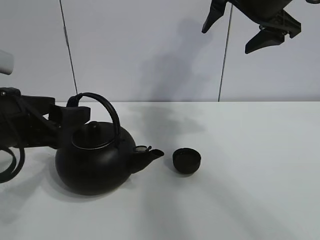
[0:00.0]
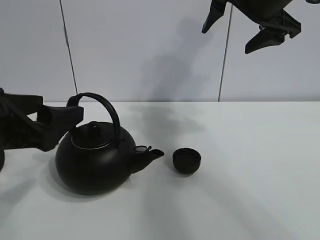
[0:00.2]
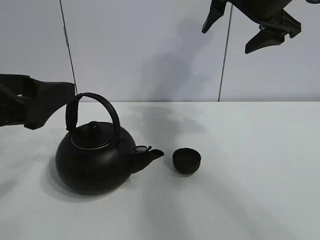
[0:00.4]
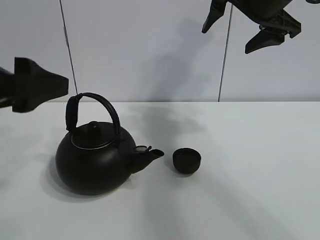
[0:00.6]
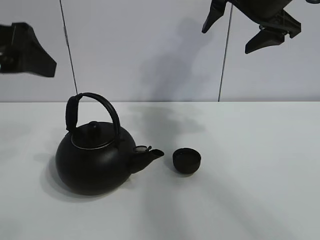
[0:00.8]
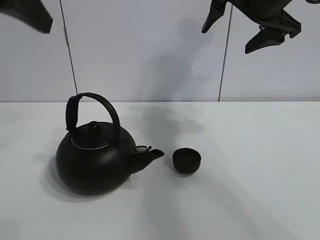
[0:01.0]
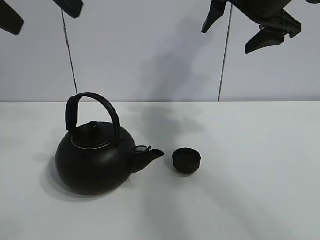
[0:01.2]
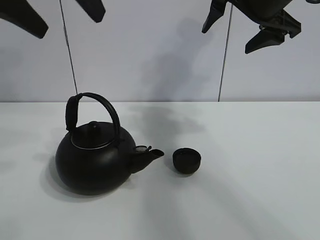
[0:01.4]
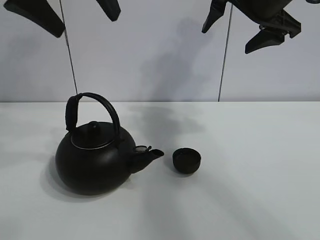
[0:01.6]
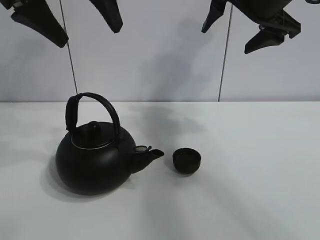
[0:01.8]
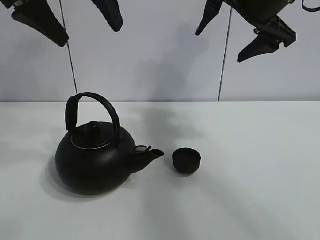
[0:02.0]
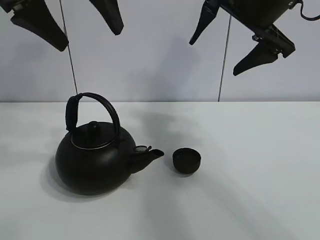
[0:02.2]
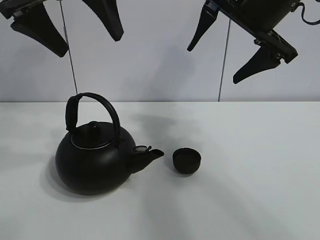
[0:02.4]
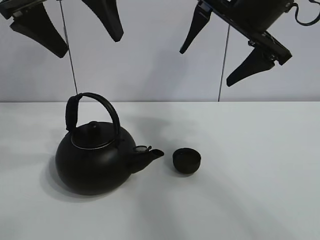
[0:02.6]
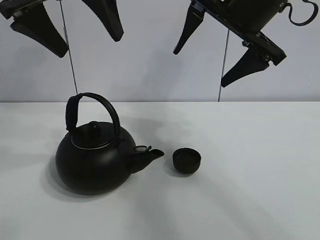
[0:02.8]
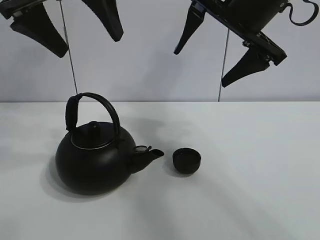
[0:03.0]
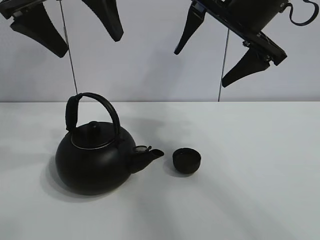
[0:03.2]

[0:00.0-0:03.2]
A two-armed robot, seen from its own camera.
Task of the whole recording: pour tea into the teacup.
0:00.0 to 0:01.6: The left gripper moves upward, approximately 20 cm.
0:01.6 to 0:03.2: The right gripper changes place by approximately 5 cm.

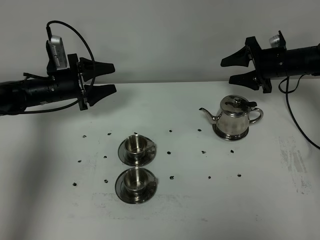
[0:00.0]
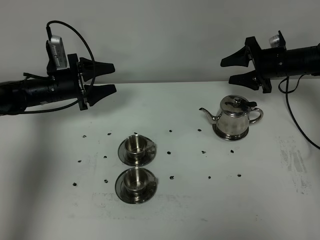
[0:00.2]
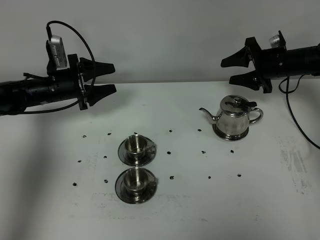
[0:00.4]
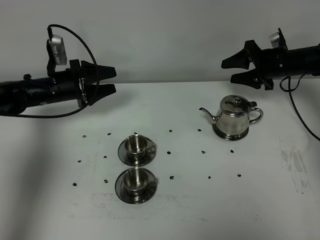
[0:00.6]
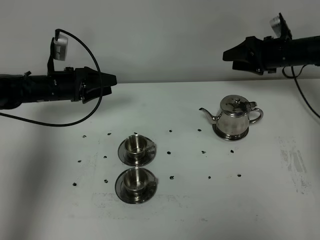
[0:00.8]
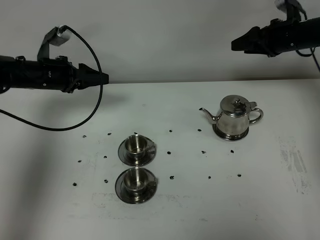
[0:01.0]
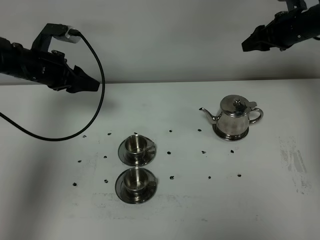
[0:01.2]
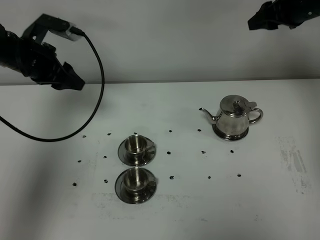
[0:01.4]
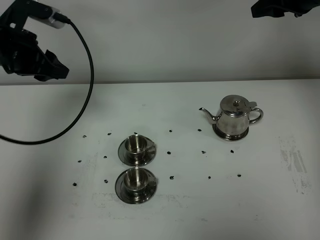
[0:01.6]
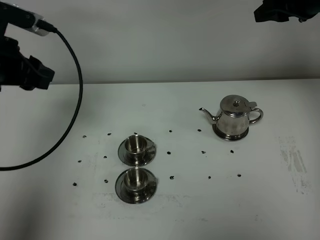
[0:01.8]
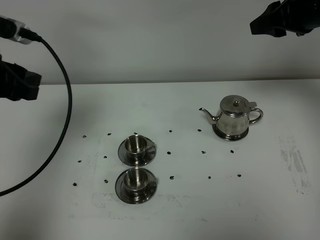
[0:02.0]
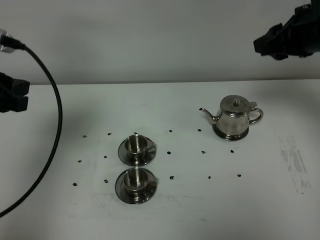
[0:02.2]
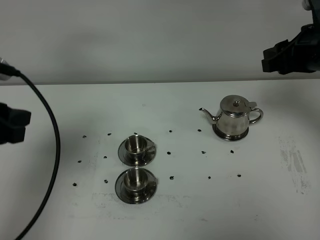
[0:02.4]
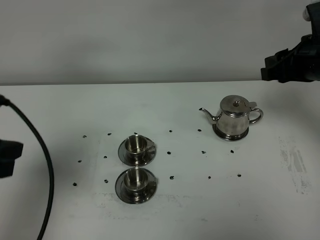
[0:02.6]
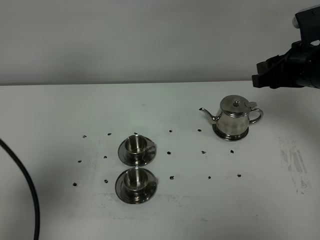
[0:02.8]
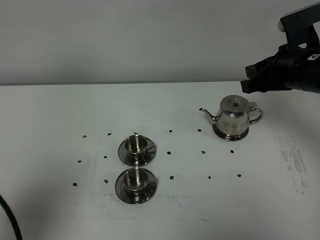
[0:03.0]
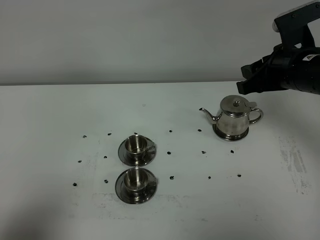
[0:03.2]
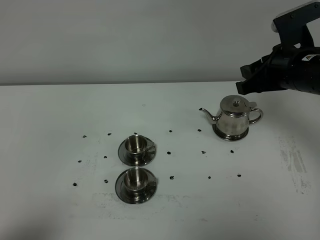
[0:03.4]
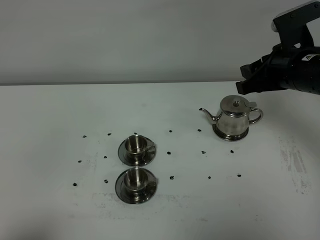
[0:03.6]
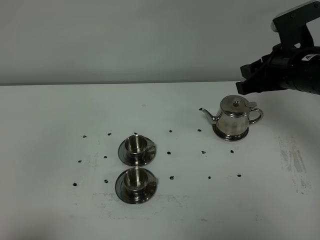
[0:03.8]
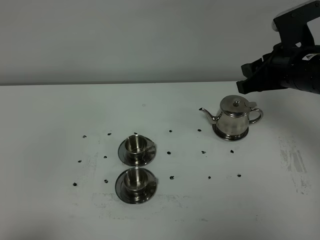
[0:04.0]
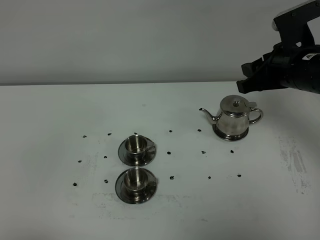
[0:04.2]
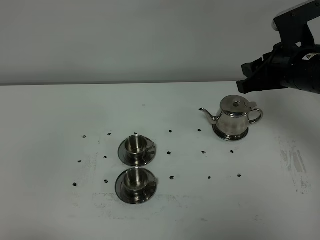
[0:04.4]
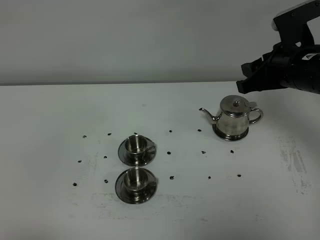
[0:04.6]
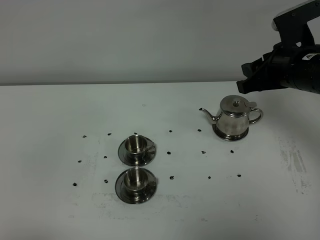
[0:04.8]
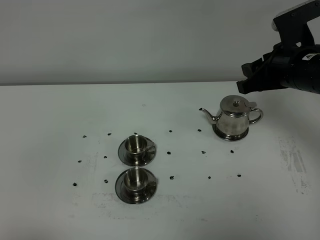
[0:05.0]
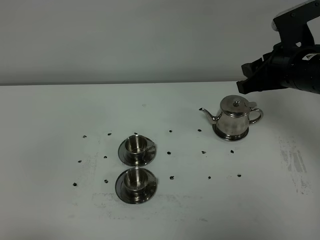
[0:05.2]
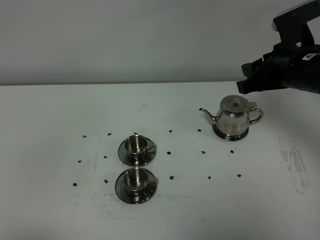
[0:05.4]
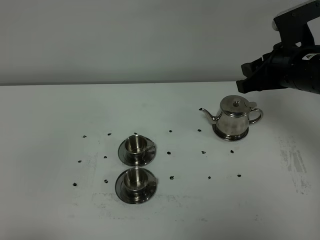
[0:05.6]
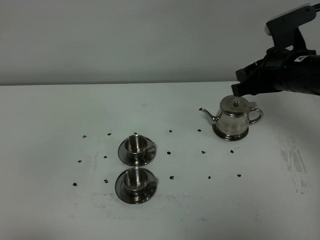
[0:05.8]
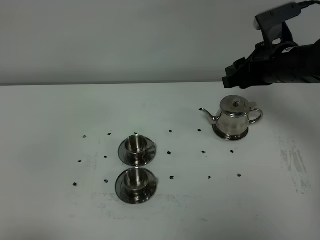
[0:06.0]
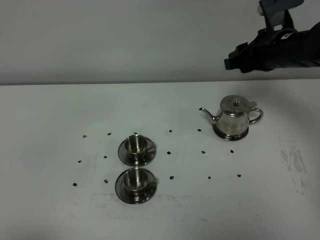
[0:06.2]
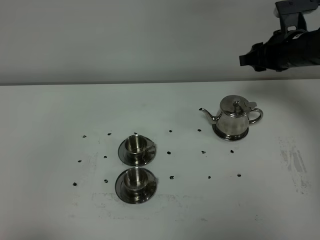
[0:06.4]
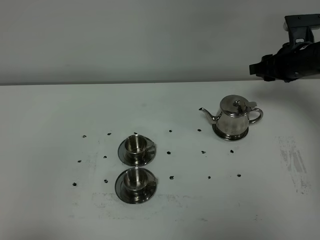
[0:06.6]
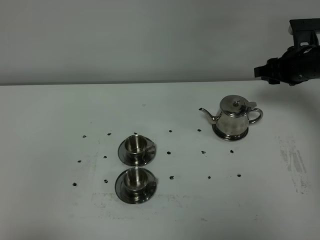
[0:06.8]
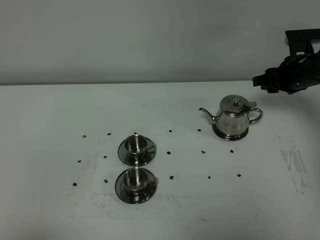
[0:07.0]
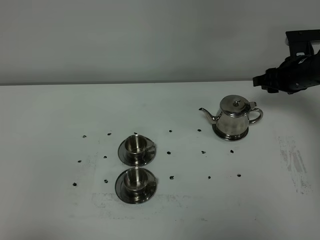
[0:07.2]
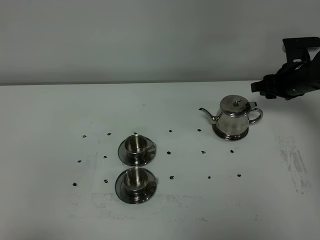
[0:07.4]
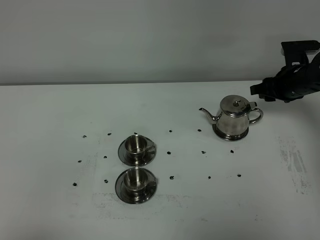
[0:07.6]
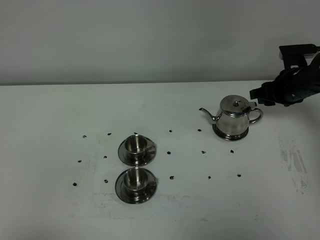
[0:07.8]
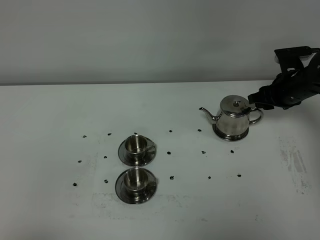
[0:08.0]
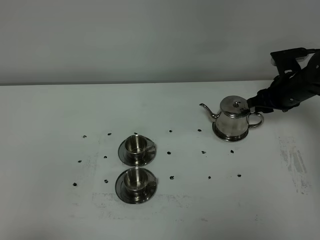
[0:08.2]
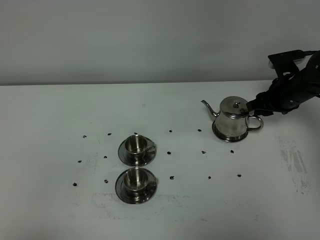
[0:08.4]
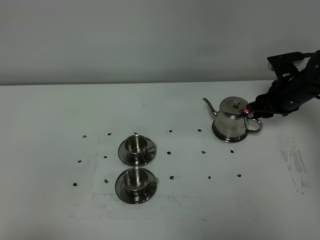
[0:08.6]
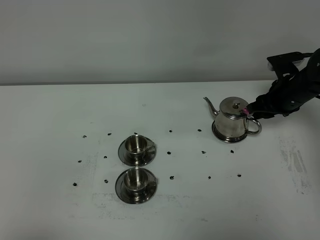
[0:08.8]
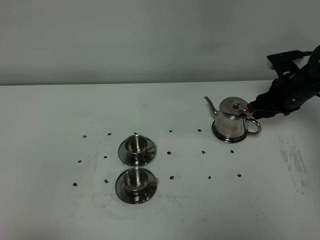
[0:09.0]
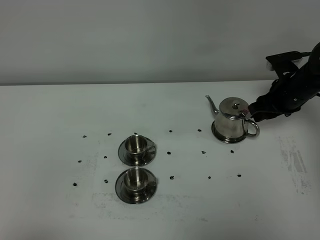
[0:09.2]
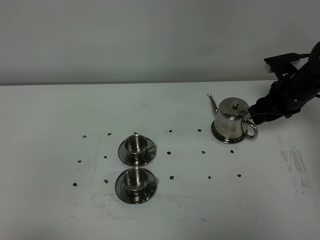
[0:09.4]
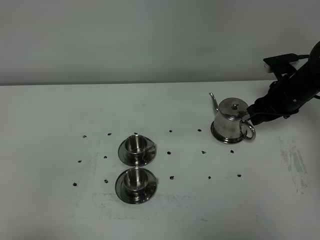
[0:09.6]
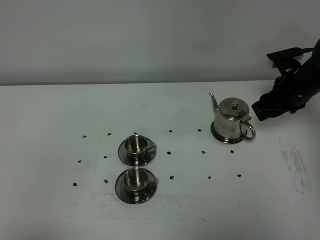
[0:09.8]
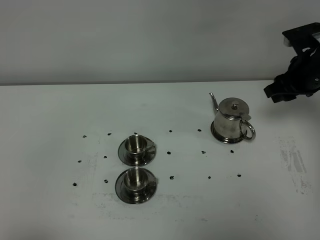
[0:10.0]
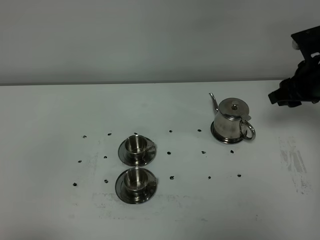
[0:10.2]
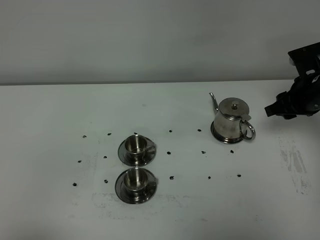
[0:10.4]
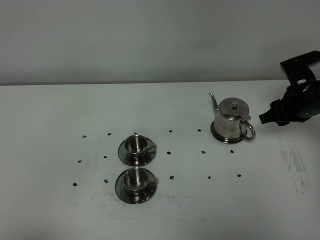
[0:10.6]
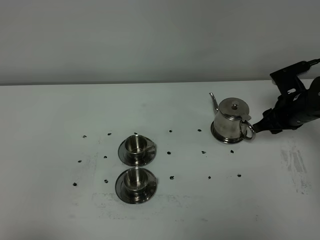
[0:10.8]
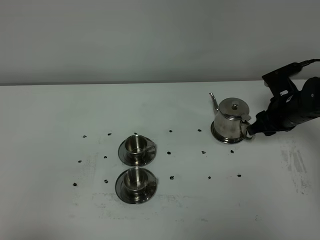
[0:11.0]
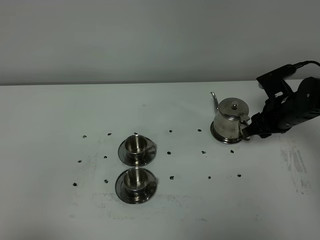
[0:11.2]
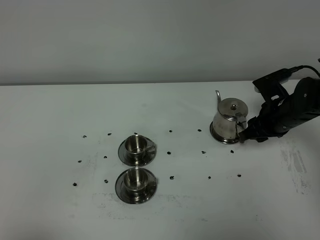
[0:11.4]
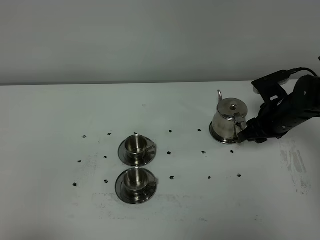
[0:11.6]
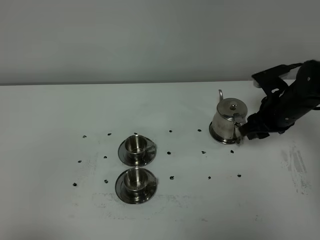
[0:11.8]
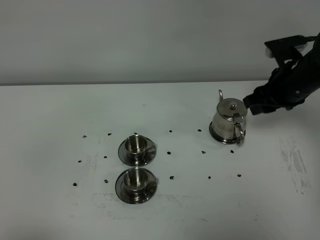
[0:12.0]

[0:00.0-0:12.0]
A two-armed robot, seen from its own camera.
Task of the whole recording: grasp the stainless steel teapot and pour the tea into the two stainless steel teacups one by one, put the stainless steel teapot back in its original place.
0:00.0 to 0:01.6: The left gripper travels upward and backward by about 20 cm. The right gripper heads upward, covering some 20 cm.
0:01.6 to 0:03.0: The right gripper travels backward, downward and to the left by roughly 15 cm, while the left gripper goes some 30 cm backward, and closes up.
0:03.0 to 0:04.4: The left gripper heads backward and downward, covering some 15 cm.
0:04.4 to 0:06.0: The grippers move only a little.
0:06.0 to 0:07.6: The right gripper goes approximately 15 cm downward, to the right and forward.
0:07.6 to 0:09.0: The grippers move only a little.
0:09.0 to 0:10.4: The right gripper travels backward by approximately 5 cm.
0:10.4 to 0:12.0: The right gripper moves some 5 cm.

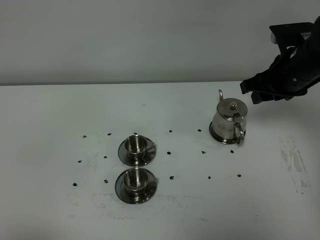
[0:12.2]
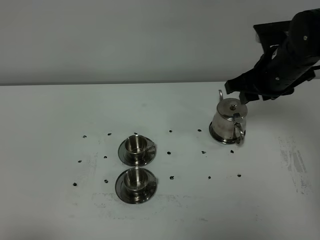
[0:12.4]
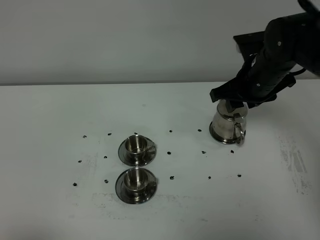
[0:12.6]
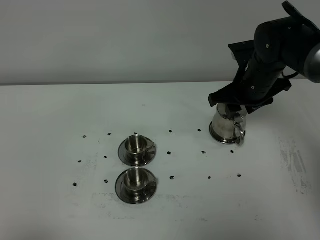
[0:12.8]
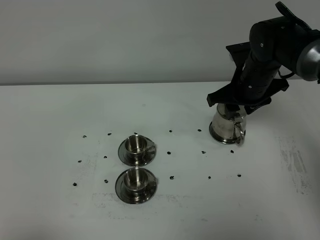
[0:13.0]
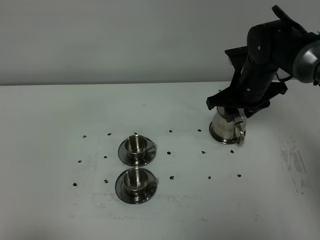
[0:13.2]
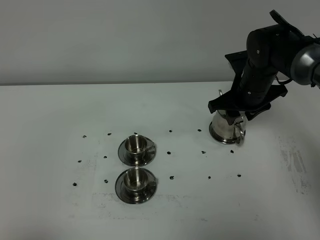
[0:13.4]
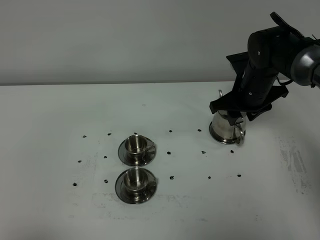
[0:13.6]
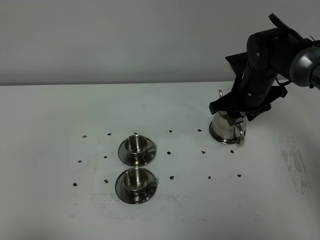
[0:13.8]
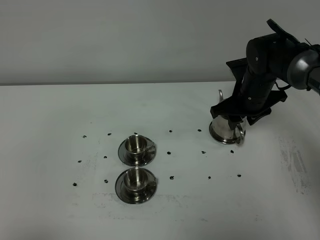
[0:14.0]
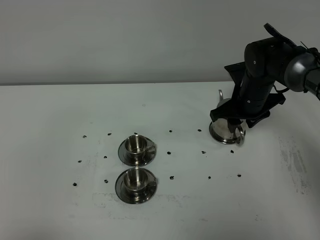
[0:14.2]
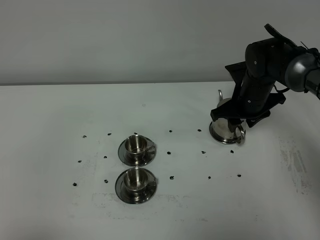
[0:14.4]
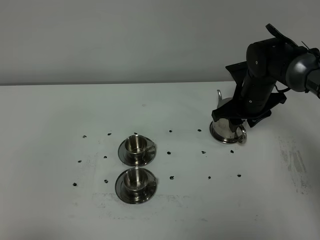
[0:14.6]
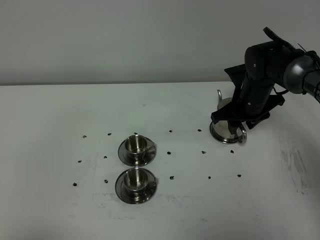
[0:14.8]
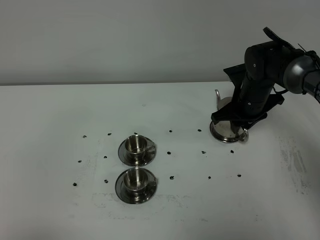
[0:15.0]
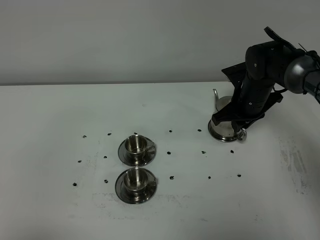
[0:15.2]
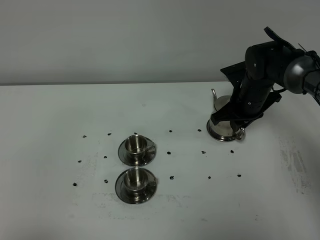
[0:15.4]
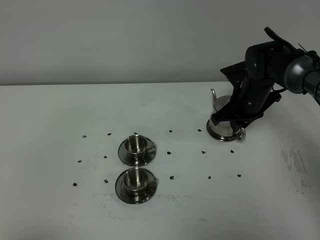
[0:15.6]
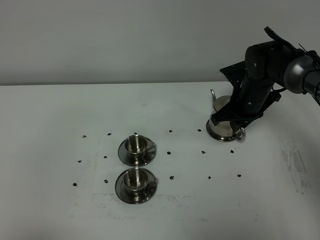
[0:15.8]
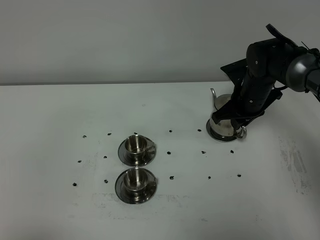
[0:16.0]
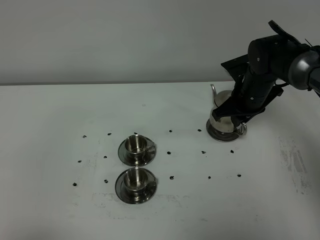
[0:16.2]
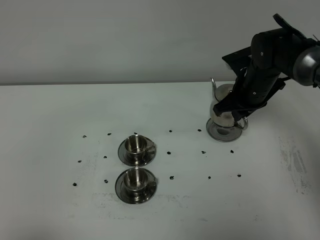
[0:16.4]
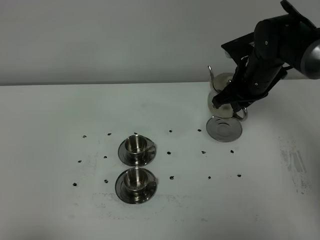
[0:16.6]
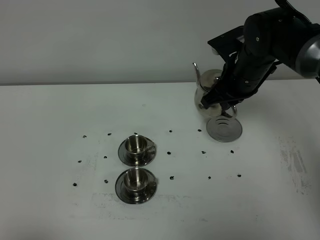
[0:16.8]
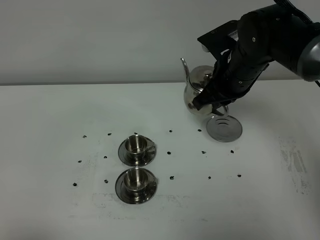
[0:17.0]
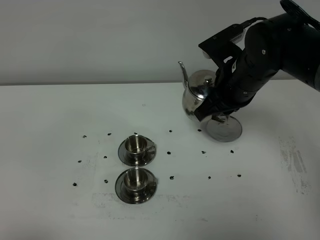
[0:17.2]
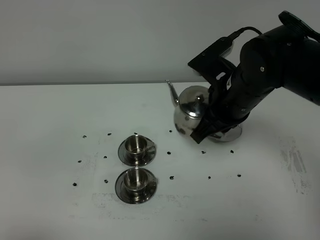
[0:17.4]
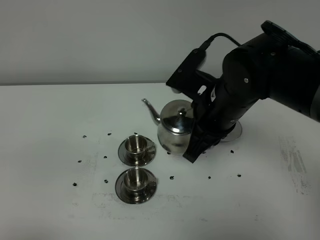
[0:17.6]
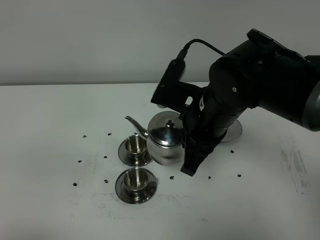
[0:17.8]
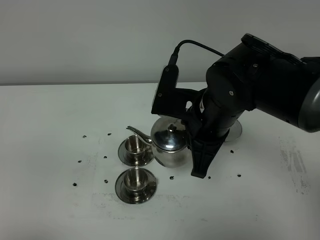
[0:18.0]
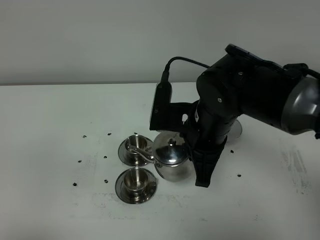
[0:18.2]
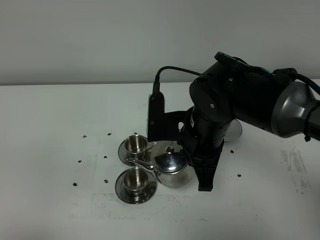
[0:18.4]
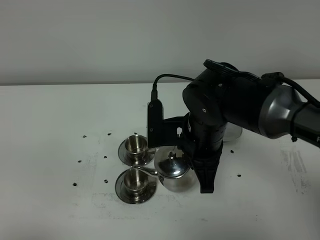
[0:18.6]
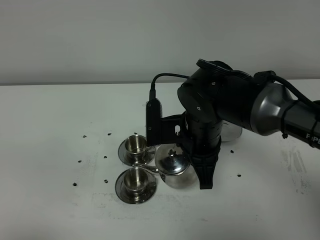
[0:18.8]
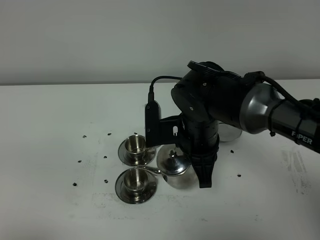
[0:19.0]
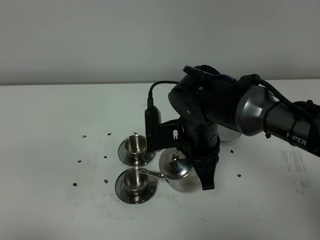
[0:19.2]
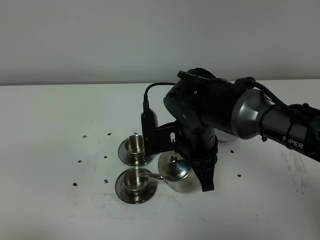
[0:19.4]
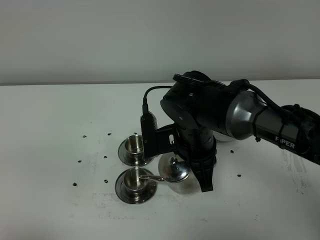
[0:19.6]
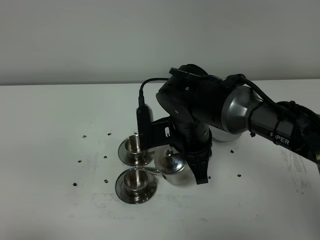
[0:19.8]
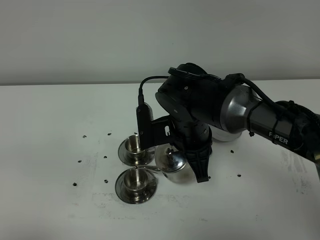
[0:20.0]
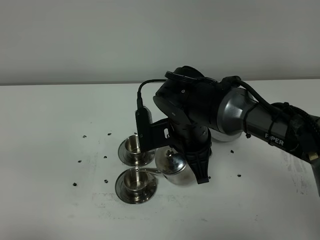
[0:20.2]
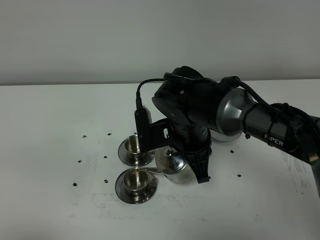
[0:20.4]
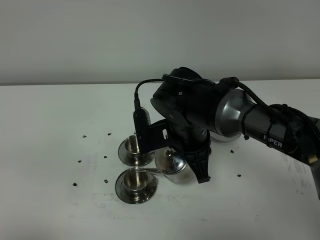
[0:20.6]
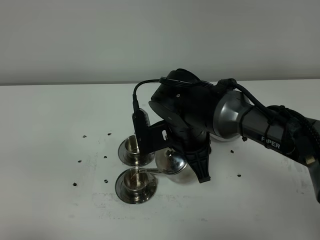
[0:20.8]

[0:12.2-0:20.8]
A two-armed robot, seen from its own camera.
Task of the whole recording: grasp the stainless steel teapot and pour the tea into the two stainless steel teacups one by one, put the stainless steel teapot back in its original place.
Step, 0:12.2 to 0:16.2: Pick up the teapot with the right gripper.
0:12.2 to 0:13.6: The right gripper moves downward, about 5 cm.
0:13.6 to 0:15.0: The right gripper closes its fingers.
0:15.0 to 0:16.6: The right gripper moves upward, approximately 5 cm.
0:16.6 to 0:18.0: The right gripper moves backward and to the left, some 15 cm.
0:18.0 to 0:19.4: The right gripper is displaced downward by about 5 cm.
0:19.4 to 0:20.8: The grippers stay close to where they were, moving slightly.
